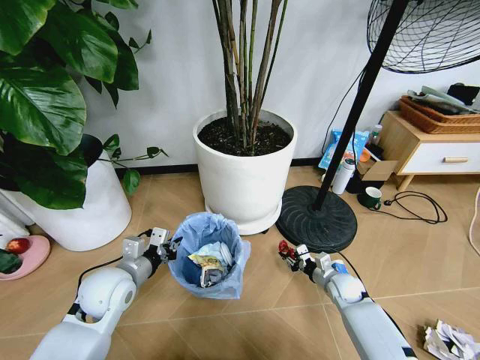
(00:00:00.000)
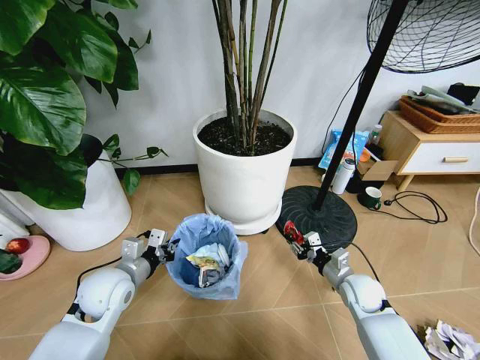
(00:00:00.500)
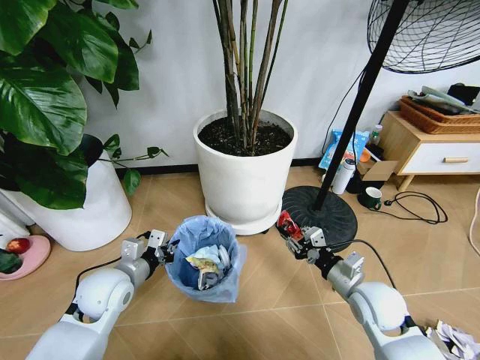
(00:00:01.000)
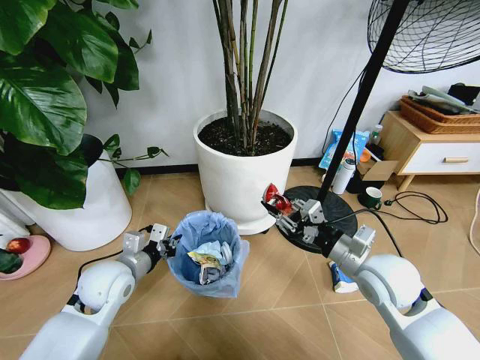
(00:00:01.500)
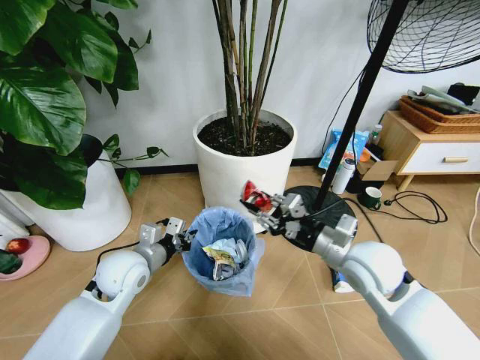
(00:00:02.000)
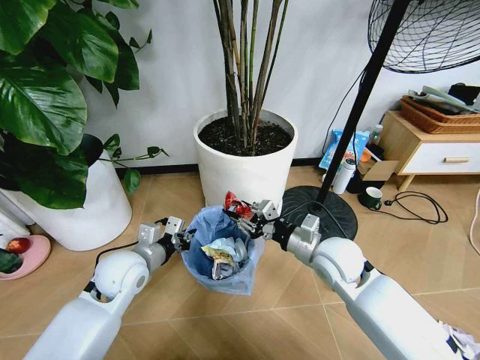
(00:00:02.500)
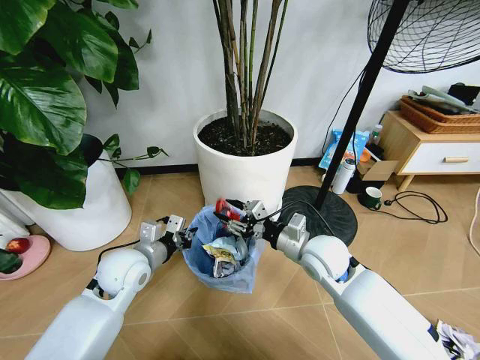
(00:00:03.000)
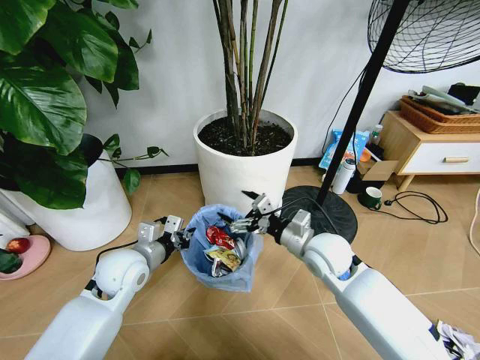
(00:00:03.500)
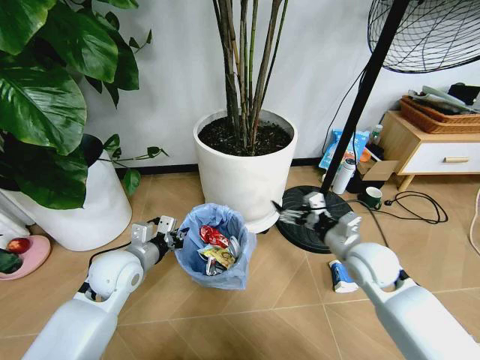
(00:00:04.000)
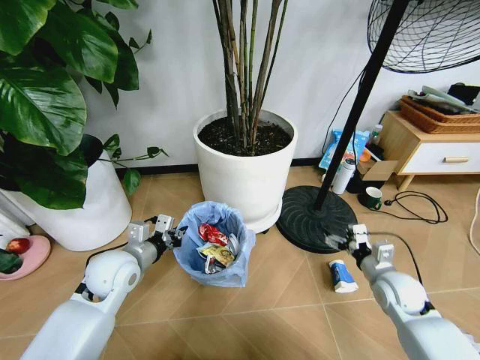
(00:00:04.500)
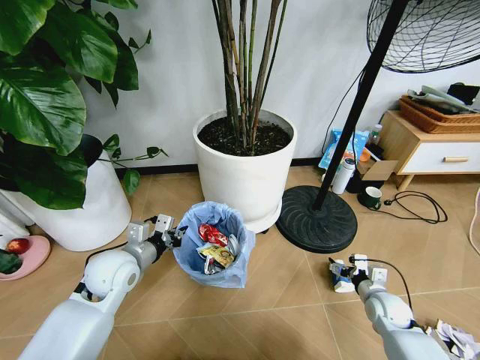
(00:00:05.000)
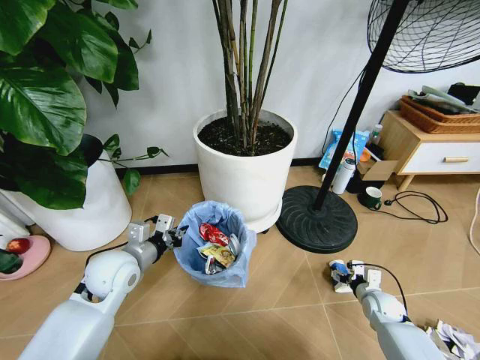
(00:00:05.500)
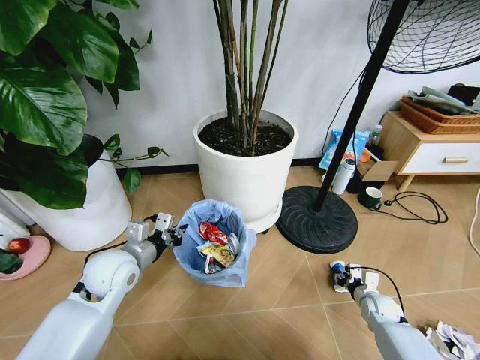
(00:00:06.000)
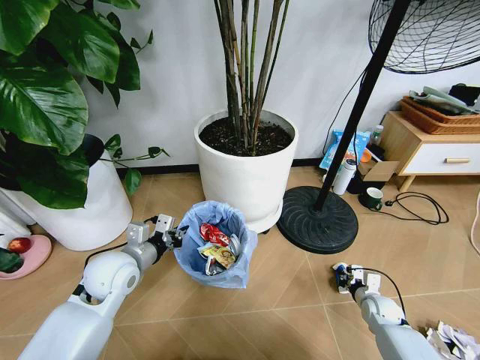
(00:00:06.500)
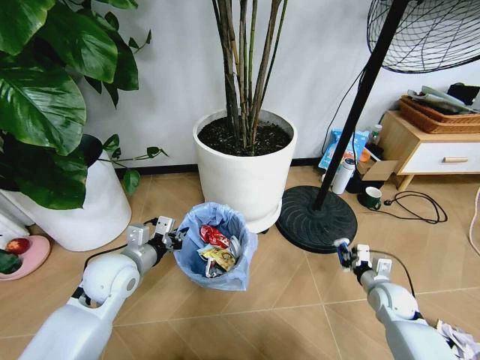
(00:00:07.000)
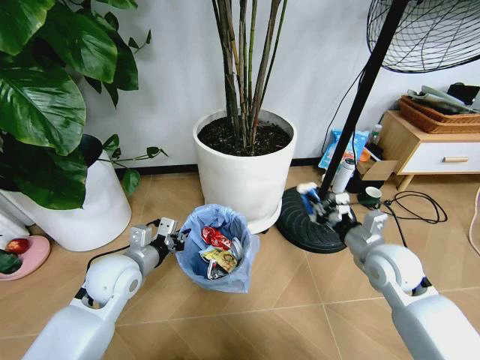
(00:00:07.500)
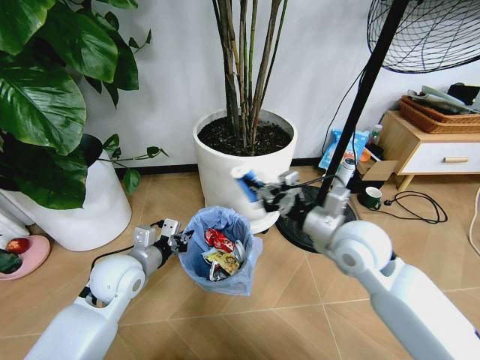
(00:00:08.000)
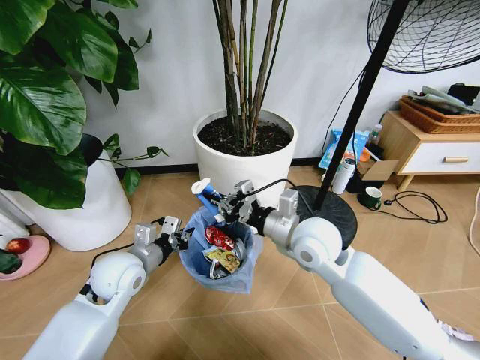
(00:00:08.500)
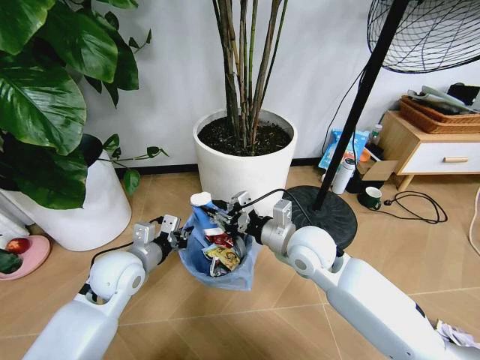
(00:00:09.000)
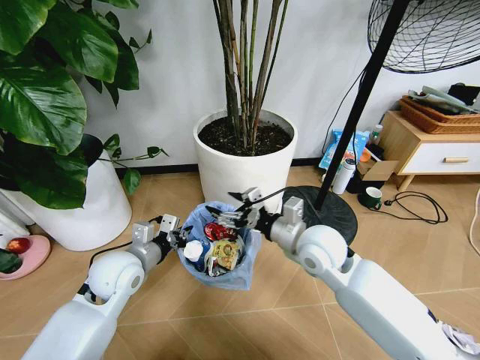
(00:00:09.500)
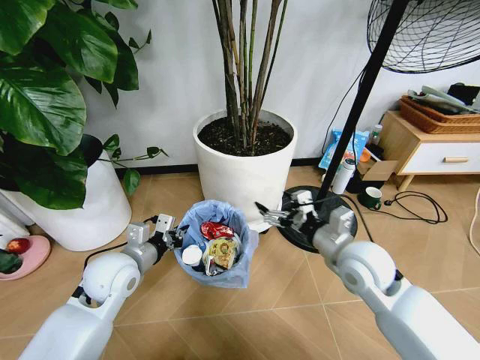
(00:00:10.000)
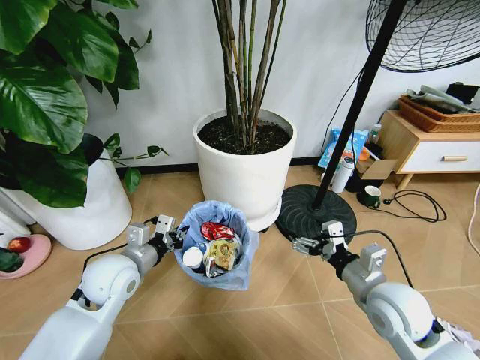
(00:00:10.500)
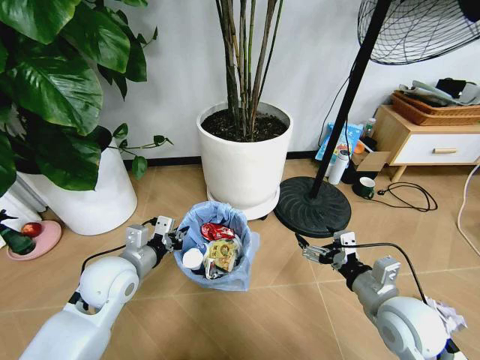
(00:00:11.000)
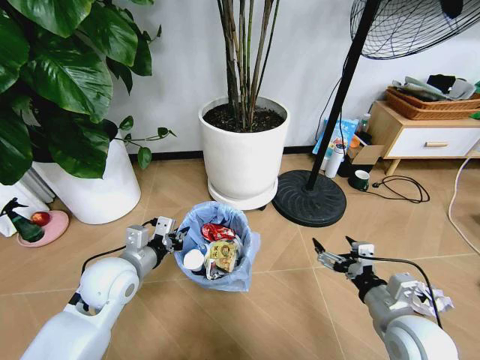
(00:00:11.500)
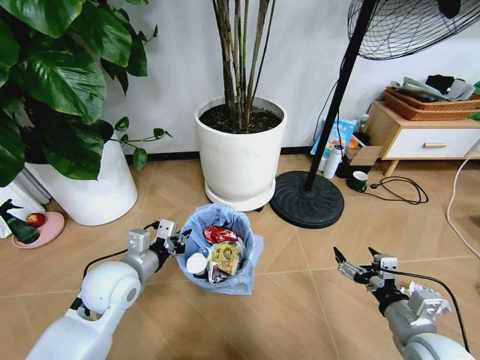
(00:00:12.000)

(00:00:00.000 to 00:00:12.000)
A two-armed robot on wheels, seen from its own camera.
Task of the whole recording: Pick up the trash bin and place the garbage on the floor into it.
00:00:00.000 - 00:00:02.000: The right gripper is displaced upward by some 30 cm.
00:00:02.000 - 00:00:04.000: The right gripper heads downward, covering about 5 cm, and opens its fingers.
00:00:04.000 - 00:00:06.000: The right gripper heads downward and to the right, covering about 30 cm, and closes its fingers.
00:00:06.000 - 00:00:08.000: The right gripper moves upward and to the left, roughly 40 cm.
00:00:08.000 - 00:00:10.000: The right gripper moves approximately 10 cm to the left and comes back, and opens up.
00:00:10.000 - 00:00:12.000: The right gripper is displaced backward, to the right and downward by approximately 20 cm.

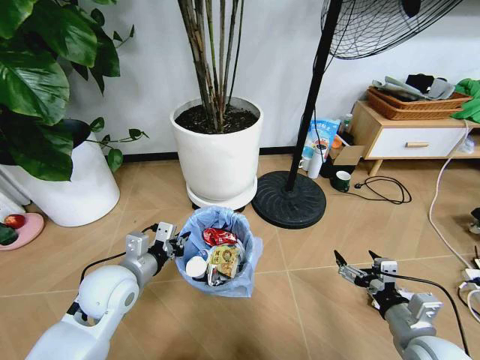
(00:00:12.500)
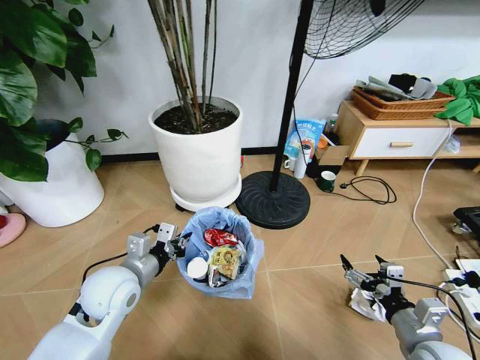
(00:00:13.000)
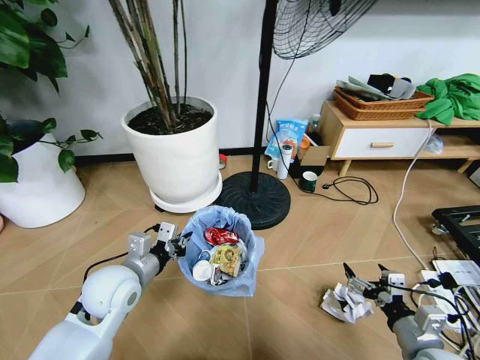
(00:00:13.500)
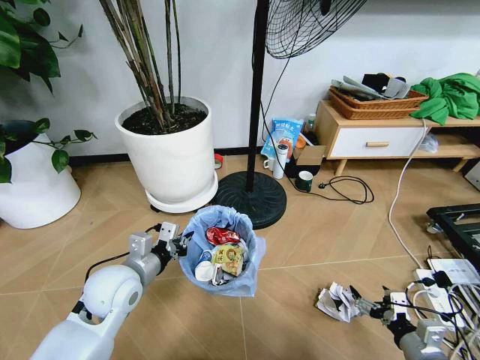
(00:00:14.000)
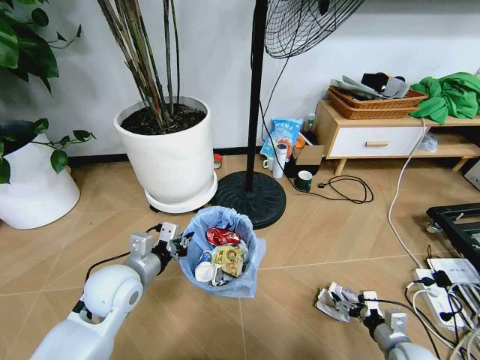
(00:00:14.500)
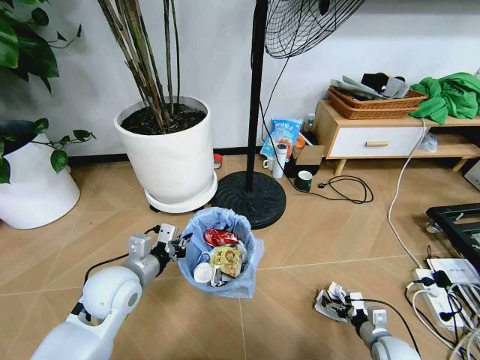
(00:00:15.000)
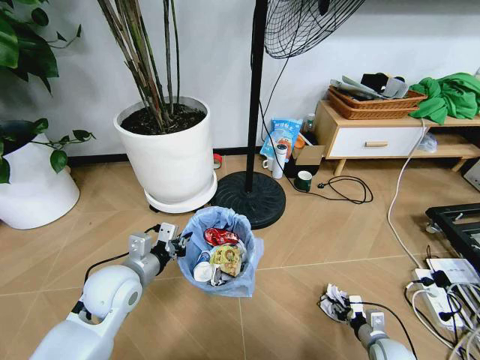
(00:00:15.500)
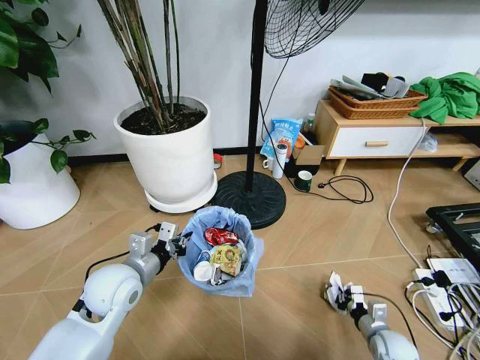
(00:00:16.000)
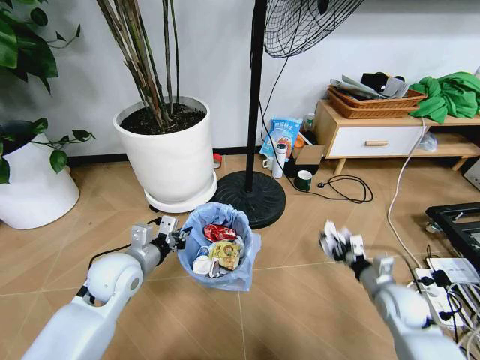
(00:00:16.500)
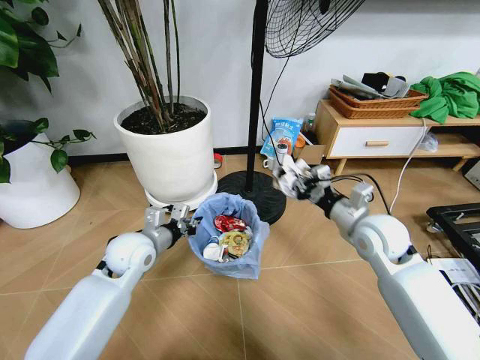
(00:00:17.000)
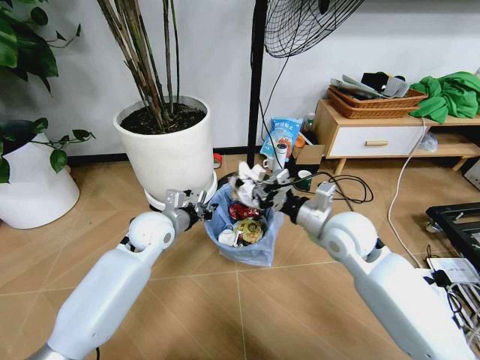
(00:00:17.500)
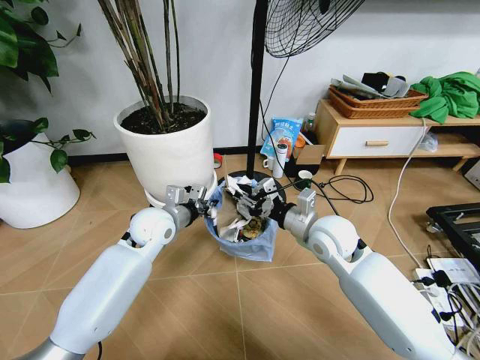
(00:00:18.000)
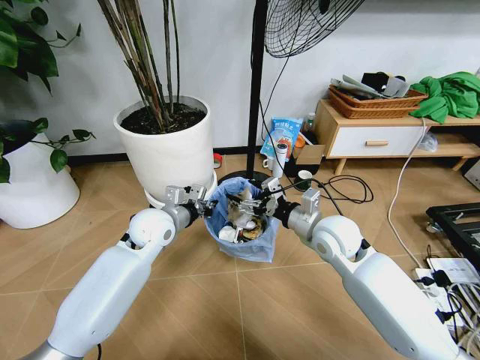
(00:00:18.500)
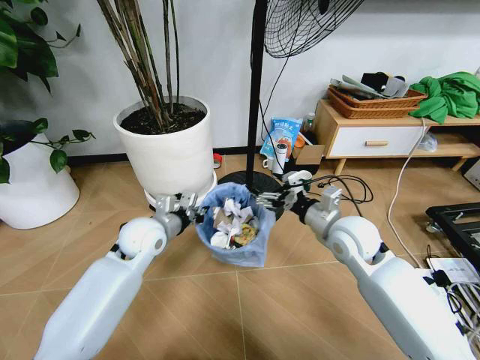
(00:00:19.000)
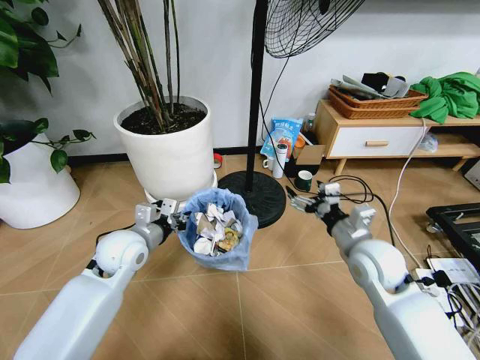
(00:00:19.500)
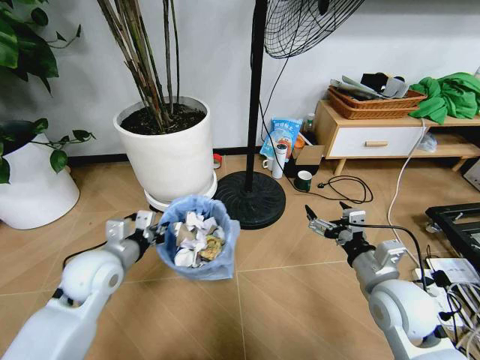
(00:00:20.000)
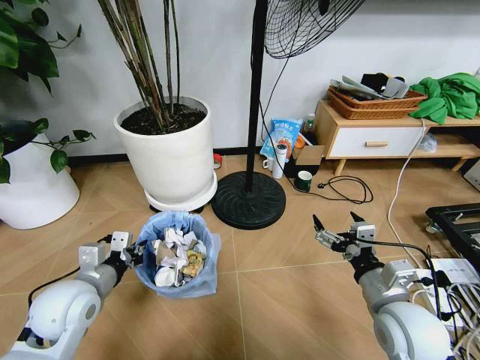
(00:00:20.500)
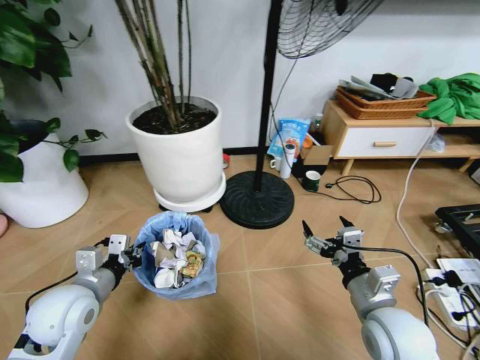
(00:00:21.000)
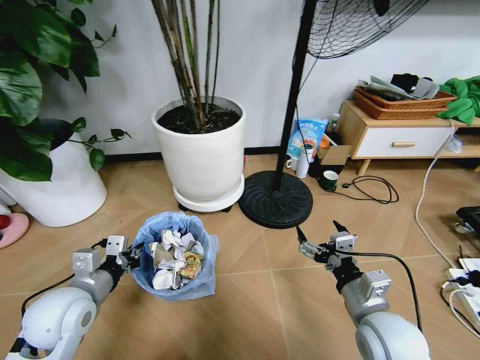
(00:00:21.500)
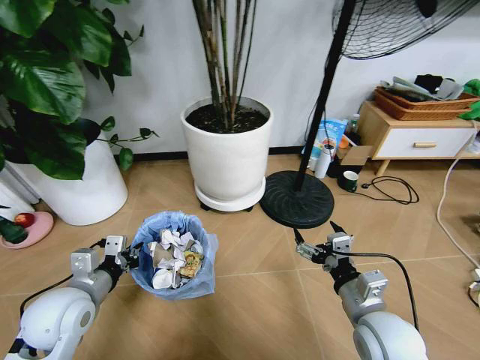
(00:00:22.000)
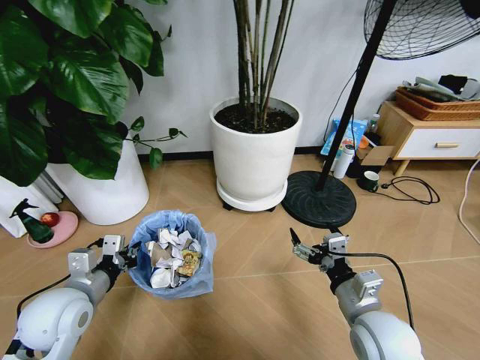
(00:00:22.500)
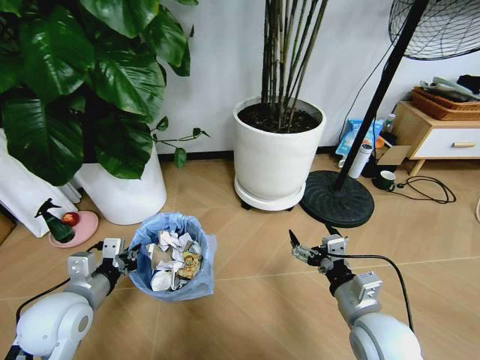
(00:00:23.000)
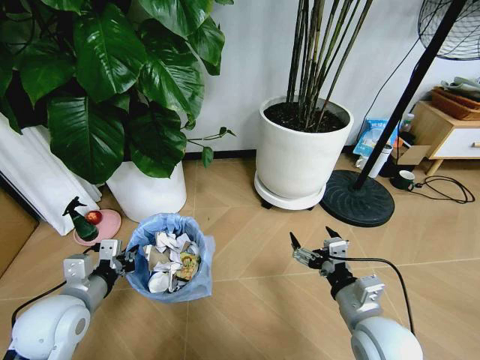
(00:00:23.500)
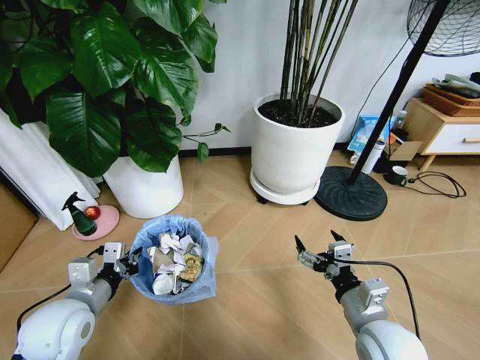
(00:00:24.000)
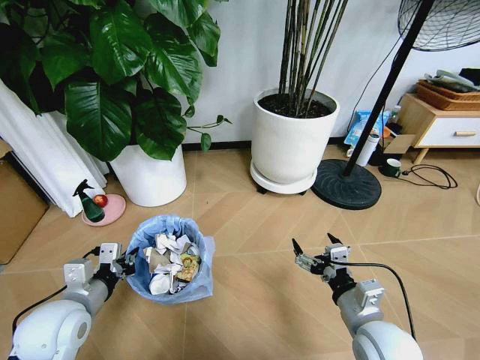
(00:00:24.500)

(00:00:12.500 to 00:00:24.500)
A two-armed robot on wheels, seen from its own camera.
Task of the whole recording: Pick up the trash bin and place the garbage on the floor into it.
00:00:12.500 - 00:00:14.500: The right gripper shifts approximately 15 cm downward.
00:00:14.500 - 00:00:16.500: The right gripper shifts roughly 15 cm forward and upward, and closes up.
00:00:16.500 - 00:00:18.500: The left gripper is displaced forward and to the right by about 10 cm; the right gripper travels to the left, upward and forward by about 25 cm, and opens.
00:00:18.500 - 00:00:20.500: The right gripper is displaced backward and to the right by approximately 20 cm. Meanwhile the left gripper goes roughly 20 cm backward and to the left.

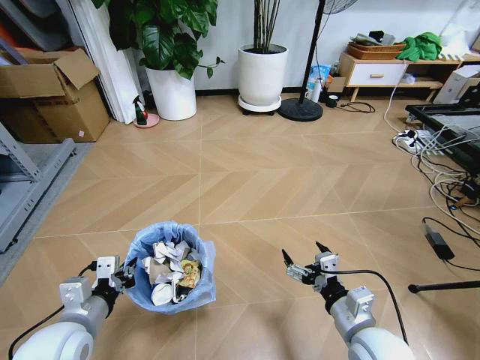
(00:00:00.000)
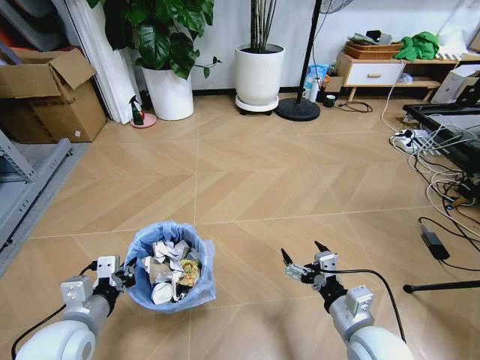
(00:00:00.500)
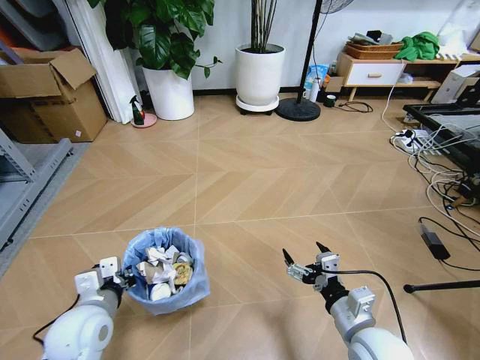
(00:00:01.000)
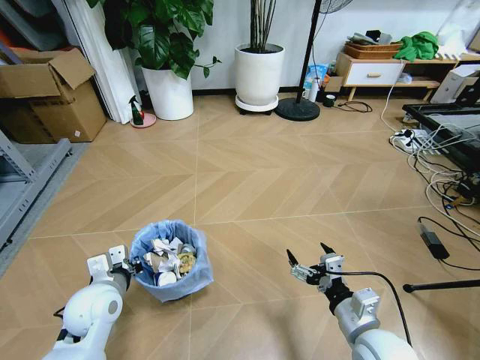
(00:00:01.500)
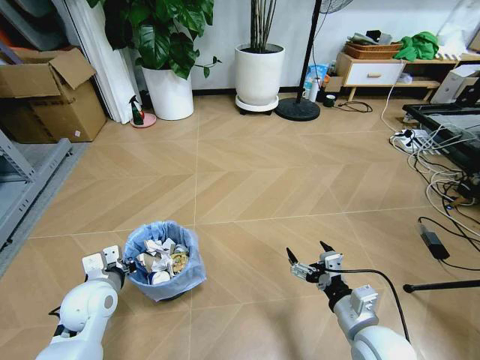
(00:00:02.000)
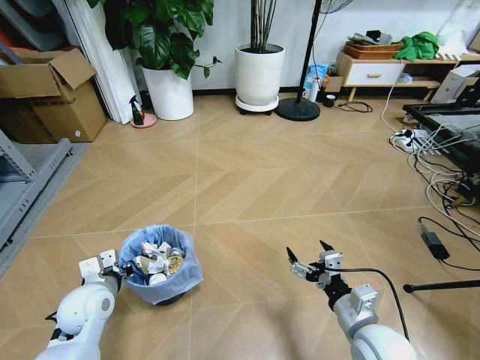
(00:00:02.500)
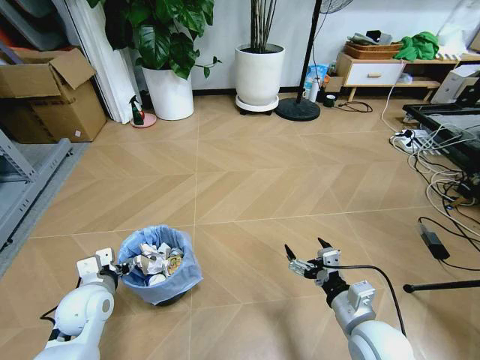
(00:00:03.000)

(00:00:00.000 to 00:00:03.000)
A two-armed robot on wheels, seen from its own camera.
Task of the whole recording: Pick up the trash bin and place the garbage on the floor into it.
00:00:00.000 - 00:00:01.500: The left gripper is displaced forward by some 10 cm.
00:00:01.500 - 00:00:03.000: The left gripper opens its fingers.
